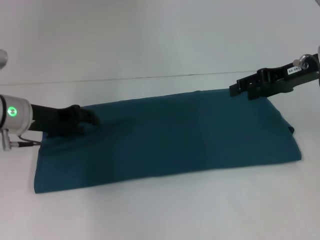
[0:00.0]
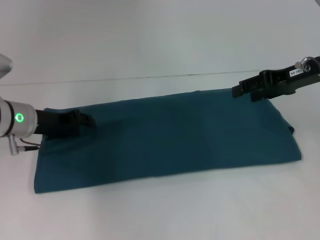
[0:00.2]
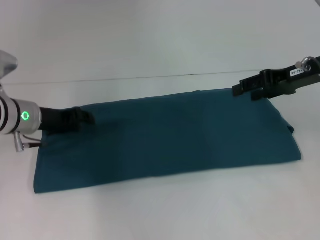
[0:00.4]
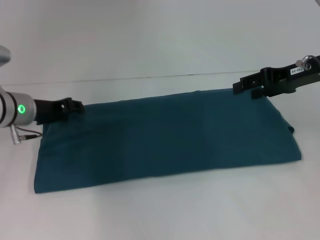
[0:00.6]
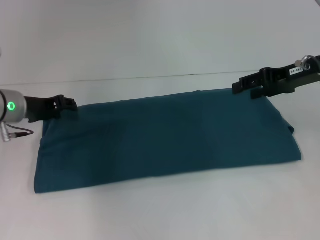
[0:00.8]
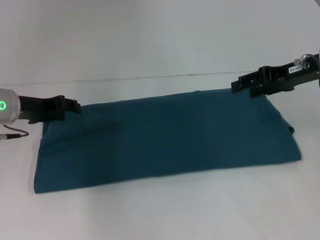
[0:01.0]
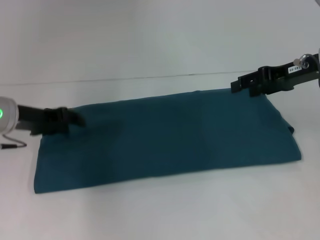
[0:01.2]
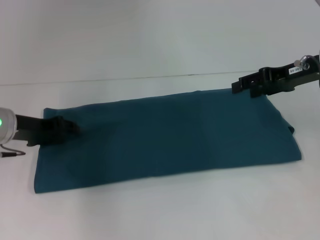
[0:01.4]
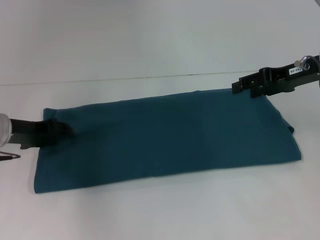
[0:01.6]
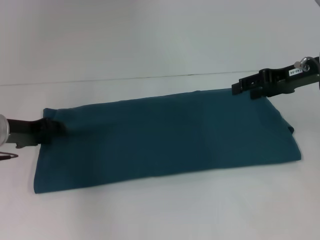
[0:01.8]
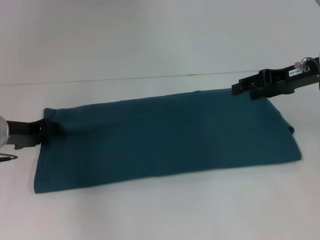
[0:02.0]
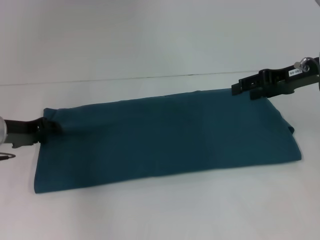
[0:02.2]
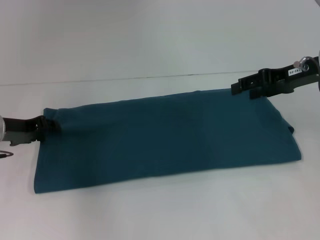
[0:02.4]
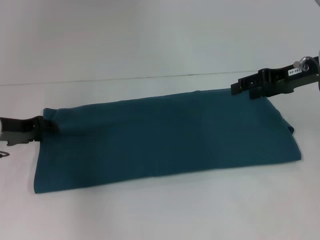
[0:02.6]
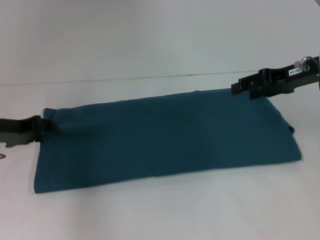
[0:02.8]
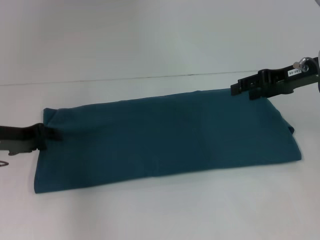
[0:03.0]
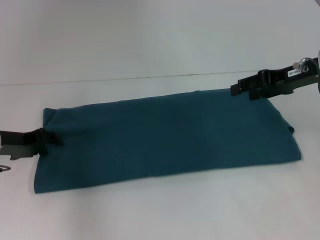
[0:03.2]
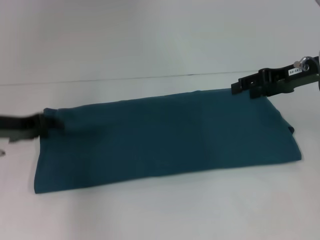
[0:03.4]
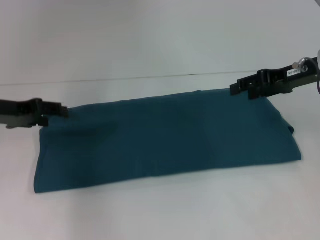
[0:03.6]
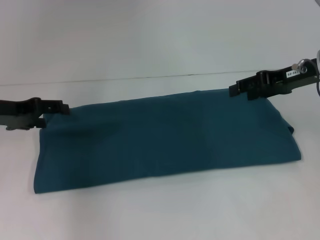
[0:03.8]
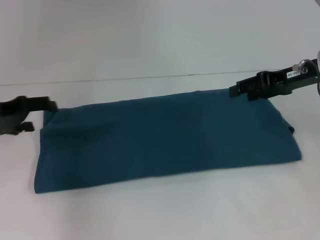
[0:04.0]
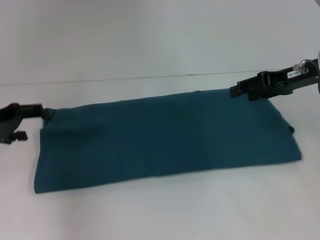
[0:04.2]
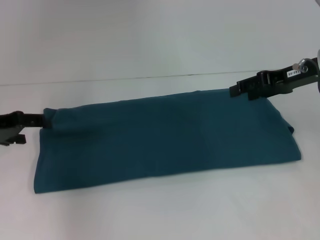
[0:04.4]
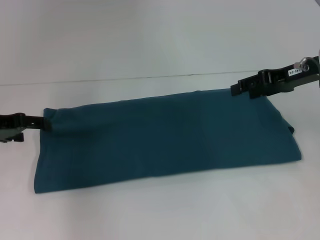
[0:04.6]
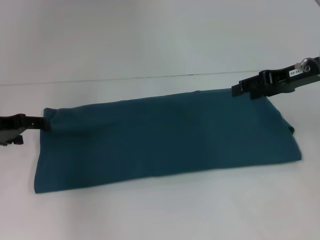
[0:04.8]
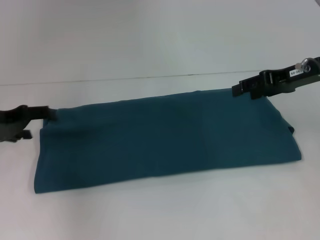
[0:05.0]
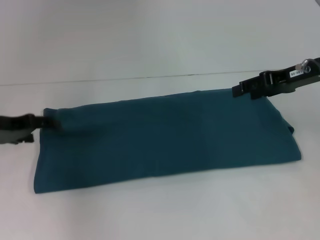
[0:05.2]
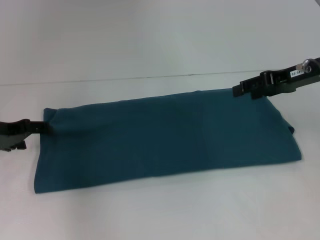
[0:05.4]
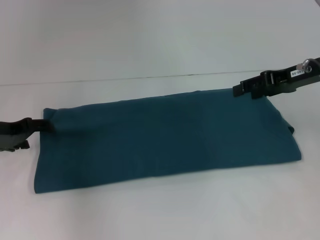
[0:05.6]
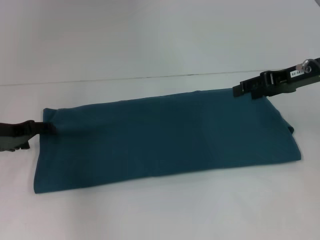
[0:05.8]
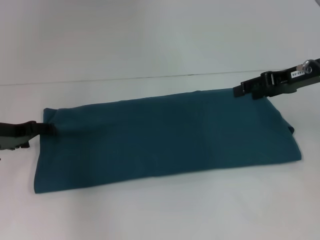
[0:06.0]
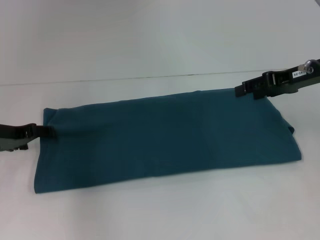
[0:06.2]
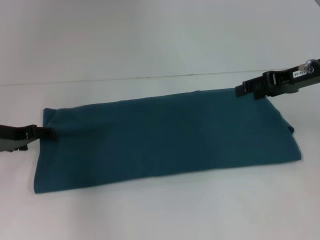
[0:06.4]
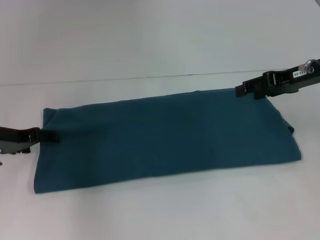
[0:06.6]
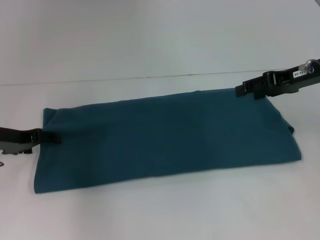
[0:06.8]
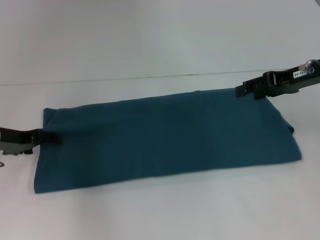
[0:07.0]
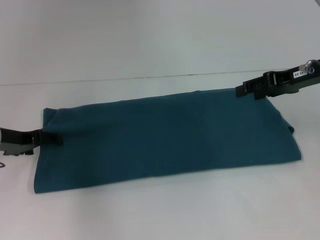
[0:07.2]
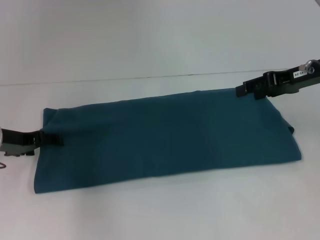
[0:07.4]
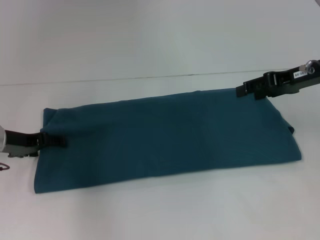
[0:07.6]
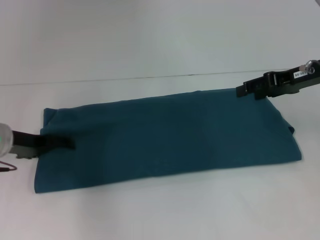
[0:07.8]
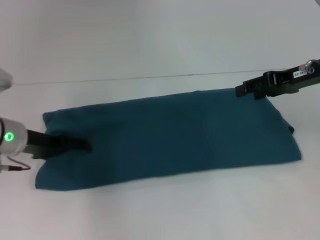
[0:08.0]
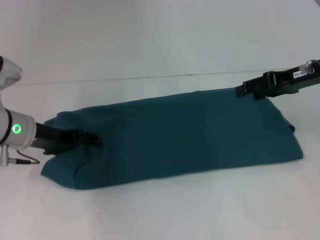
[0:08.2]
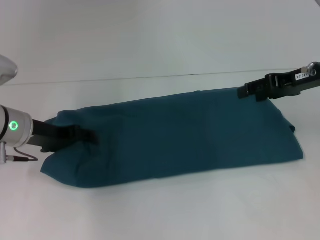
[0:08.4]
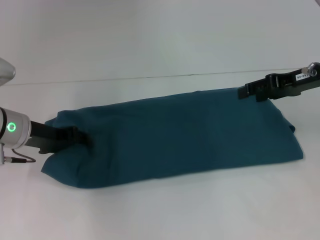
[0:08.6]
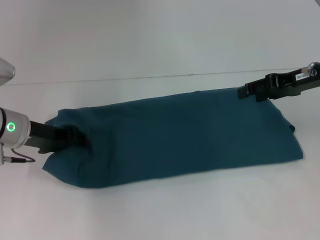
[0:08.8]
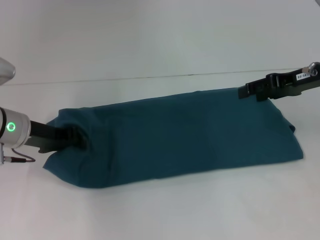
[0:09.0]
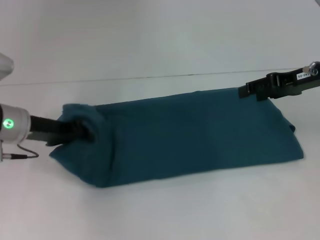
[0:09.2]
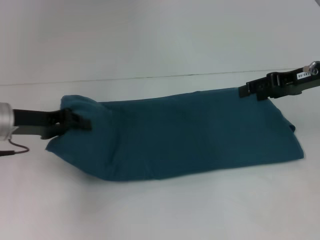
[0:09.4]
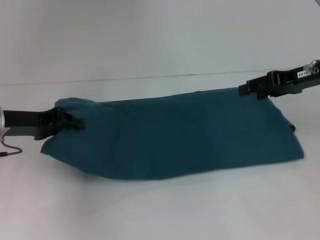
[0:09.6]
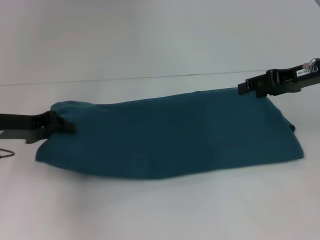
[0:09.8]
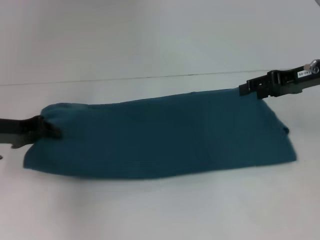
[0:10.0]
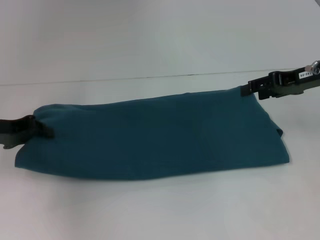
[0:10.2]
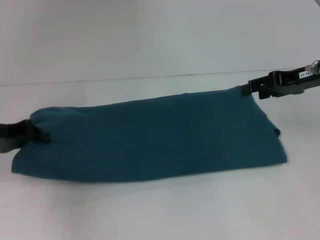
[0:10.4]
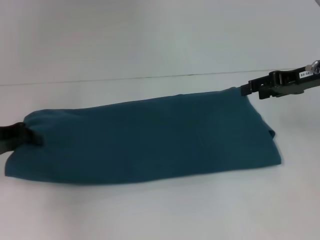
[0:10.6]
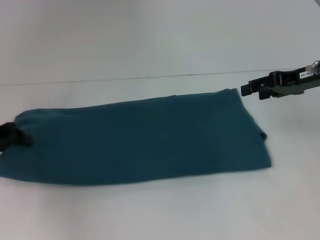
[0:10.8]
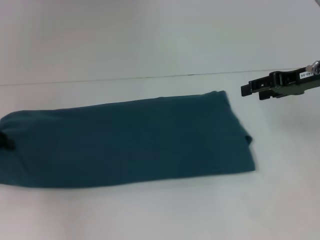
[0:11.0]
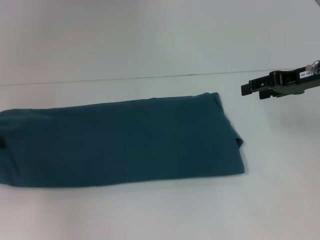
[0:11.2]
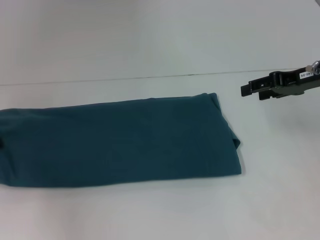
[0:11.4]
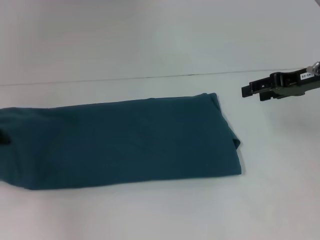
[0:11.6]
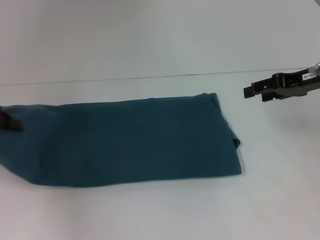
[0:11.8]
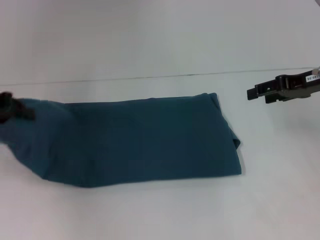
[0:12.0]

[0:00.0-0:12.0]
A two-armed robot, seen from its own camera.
0:00.0 to 0:03.0: The grippers make only small movements.
0:03.0 to 0:04.4: The left gripper shifts by approximately 5 cm, and opens.
0:04.4 to 0:06.0: The left gripper moves approximately 5 cm.
0:06.0 to 0:07.6: There are only small adjustments of the grippers.
0:07.6 to 0:09.0: The left gripper closes up.
0:09.0 to 0:10.4: The left gripper shifts roughly 10 cm to the left, and closes.
0:10.4 to 0:12.0: The left gripper moves upward, some 5 cm.

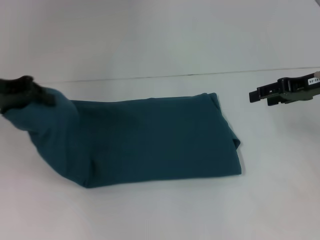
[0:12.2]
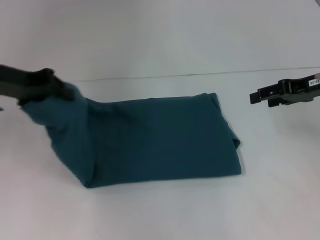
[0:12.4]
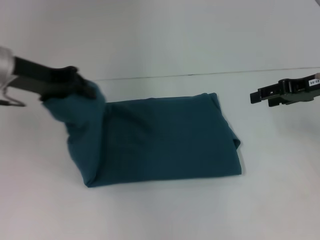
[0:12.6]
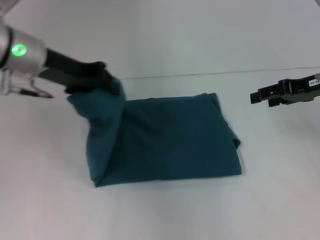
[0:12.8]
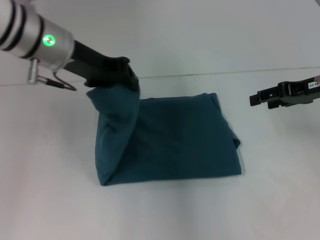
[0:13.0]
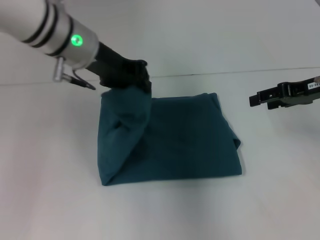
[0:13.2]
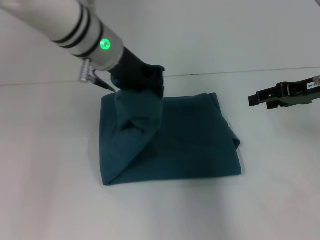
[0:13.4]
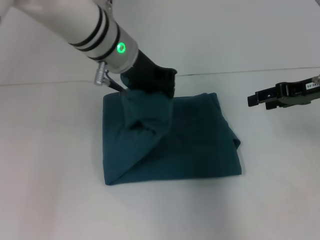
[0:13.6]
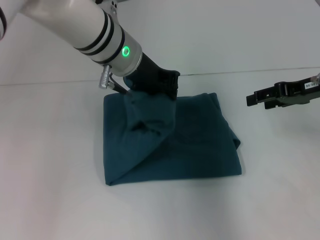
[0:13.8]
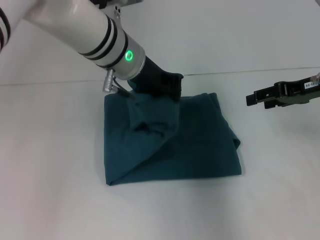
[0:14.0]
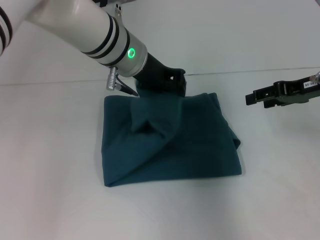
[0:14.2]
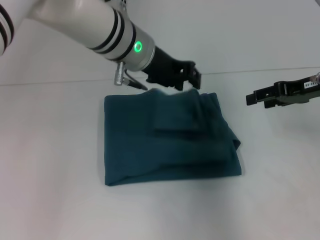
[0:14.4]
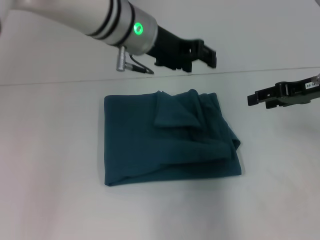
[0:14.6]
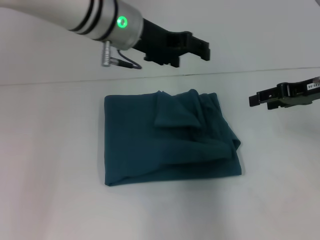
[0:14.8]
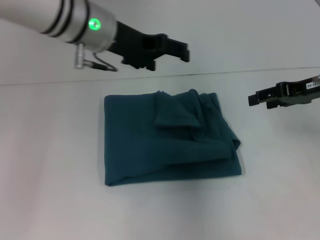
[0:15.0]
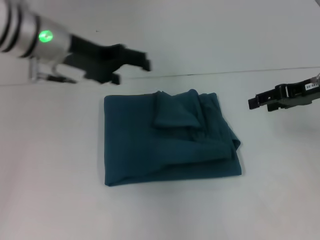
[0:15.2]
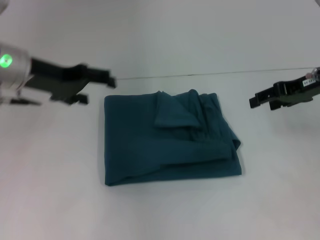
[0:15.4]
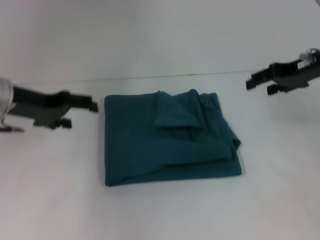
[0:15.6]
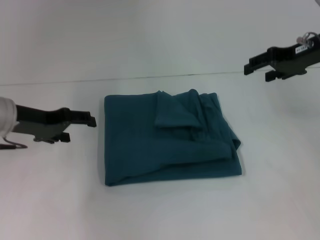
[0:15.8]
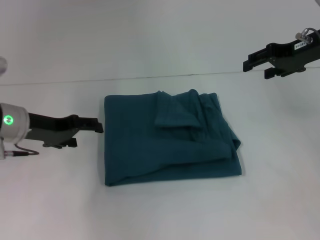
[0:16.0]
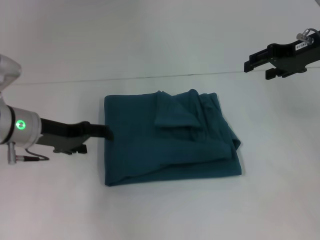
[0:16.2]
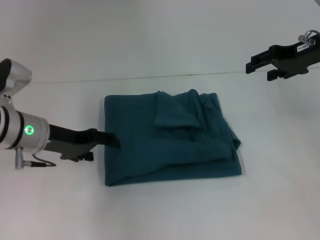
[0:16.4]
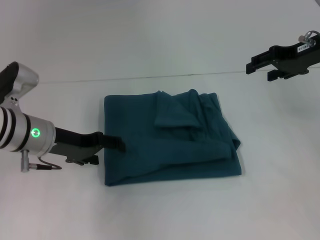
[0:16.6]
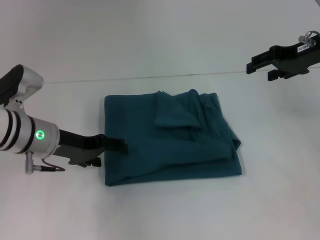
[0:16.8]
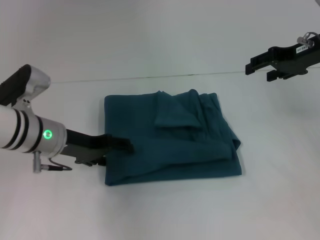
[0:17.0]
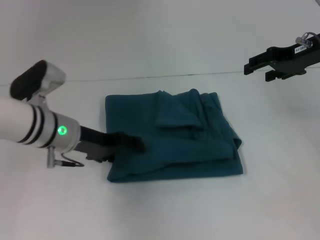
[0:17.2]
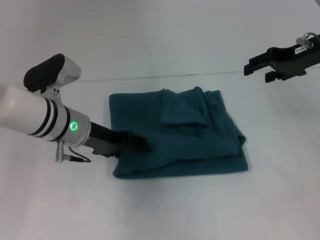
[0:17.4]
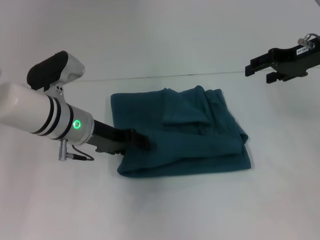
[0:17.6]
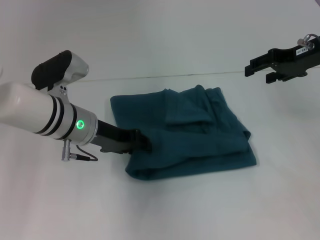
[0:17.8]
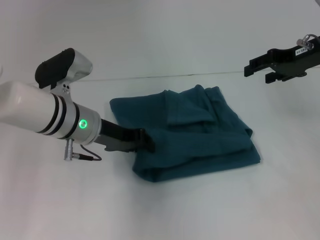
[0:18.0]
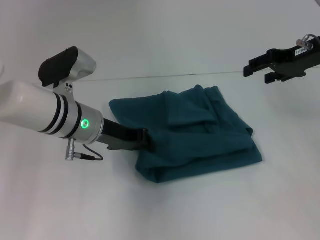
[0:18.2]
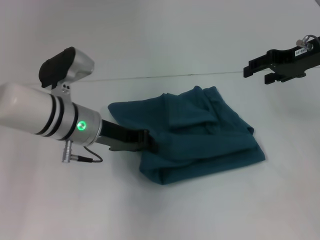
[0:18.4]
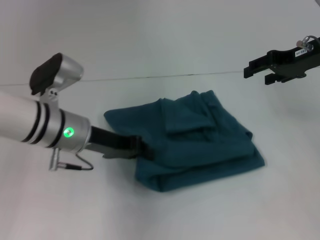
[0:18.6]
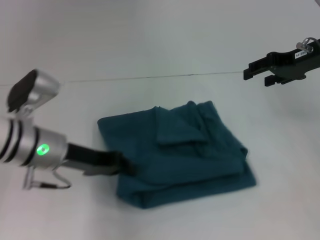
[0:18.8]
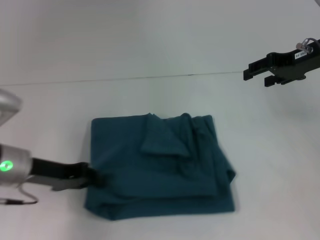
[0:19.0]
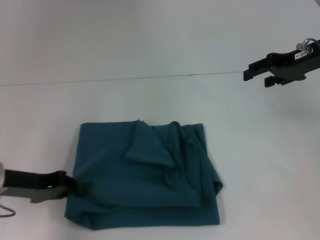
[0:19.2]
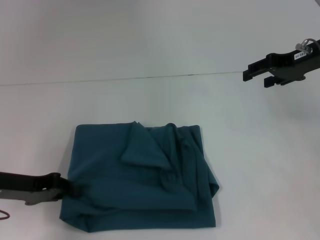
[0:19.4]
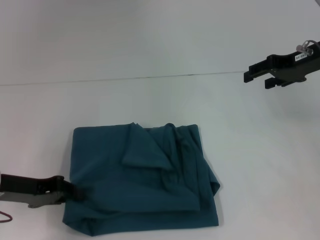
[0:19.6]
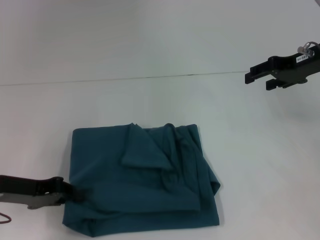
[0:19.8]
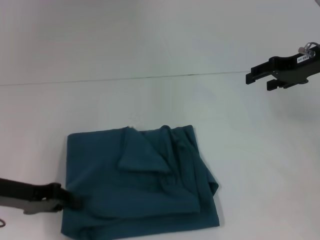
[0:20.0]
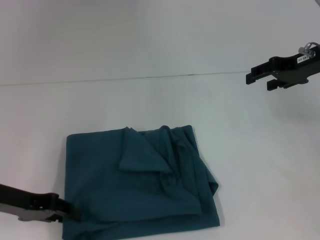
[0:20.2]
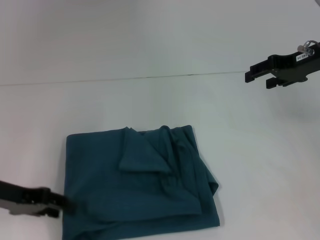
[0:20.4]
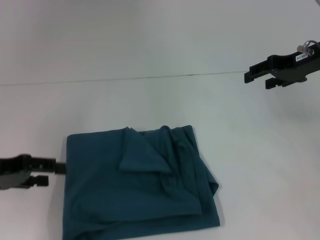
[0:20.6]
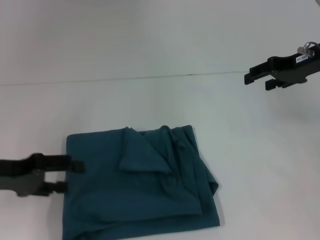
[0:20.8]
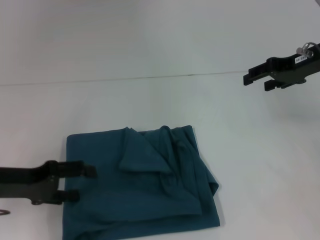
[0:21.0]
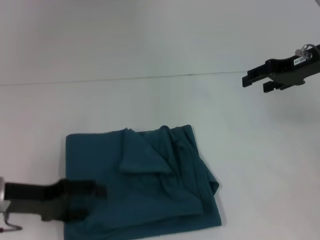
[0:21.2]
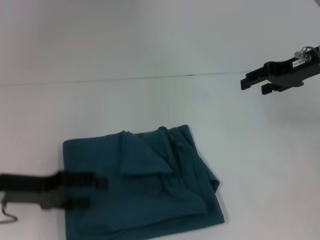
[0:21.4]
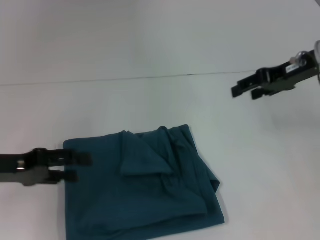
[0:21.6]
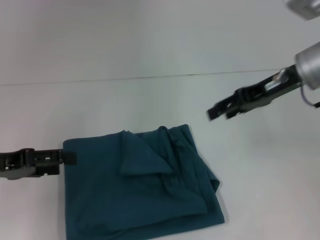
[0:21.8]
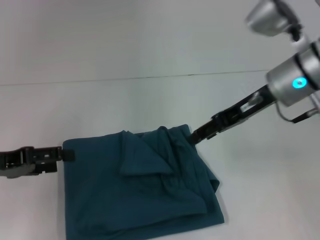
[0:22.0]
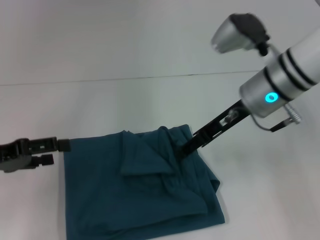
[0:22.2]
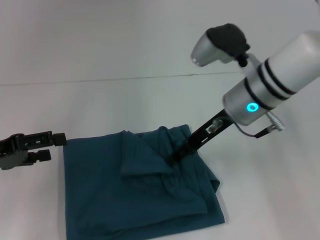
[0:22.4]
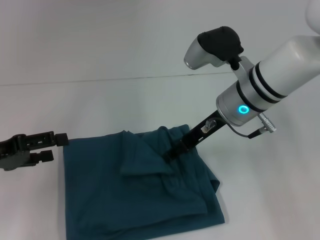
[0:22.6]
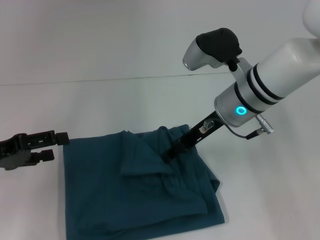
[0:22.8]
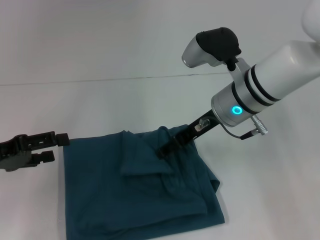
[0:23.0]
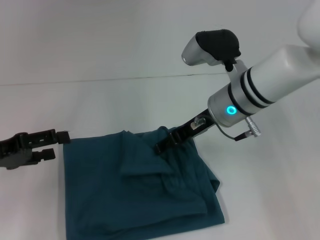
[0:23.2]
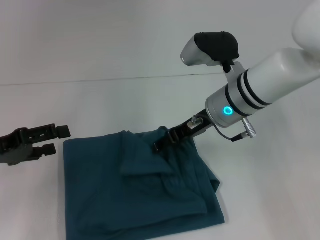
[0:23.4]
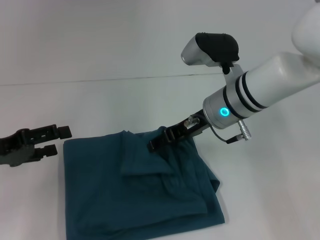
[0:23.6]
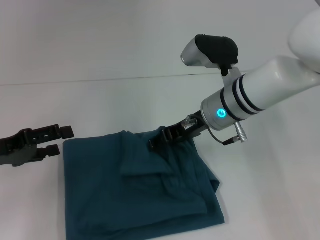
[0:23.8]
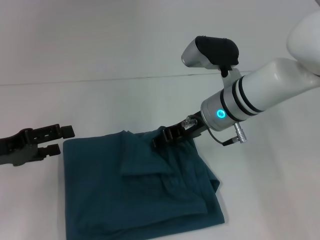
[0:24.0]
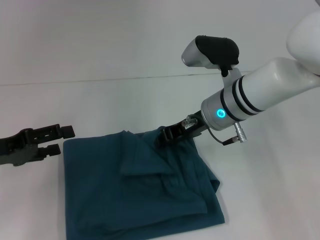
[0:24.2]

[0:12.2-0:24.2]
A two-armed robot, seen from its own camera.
Step, 0:12.2 to 0:15.0: Fold the clothes to the left.
0:12.2 to 0:13.8: The left gripper shifts about 25 cm to the right.
0:13.8 to 0:15.2: The left gripper shifts roughly 10 cm to the left, and opens its fingers.
0:15.2 to 0:16.6: The right gripper shifts by some 5 cm; the left gripper is displaced downward by roughly 15 cm.
0:16.6 to 0:18.2: The left gripper heads to the right, covering about 5 cm, and closes.
0:18.2 to 0:19.8: The left gripper goes about 15 cm to the left and backward.
0:19.8 to 0:21.2: The left gripper opens its fingers.
0:21.2 to 0:22.6: The right gripper is displaced to the left by some 15 cm. Meanwhile the left gripper shifts by approximately 5 cm.
0:22.6 to 0:24.2: The grippers move only a little.
